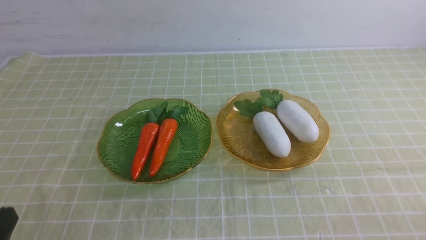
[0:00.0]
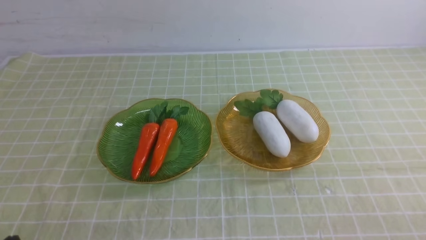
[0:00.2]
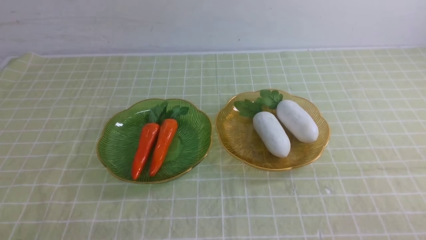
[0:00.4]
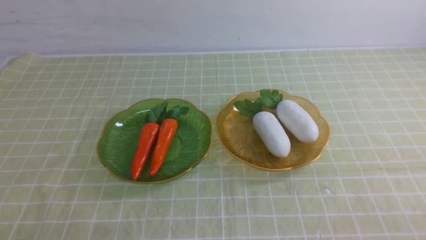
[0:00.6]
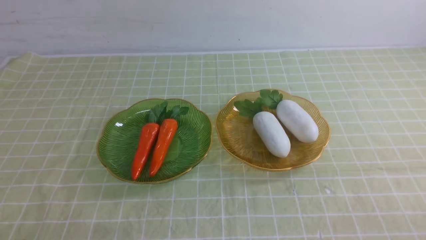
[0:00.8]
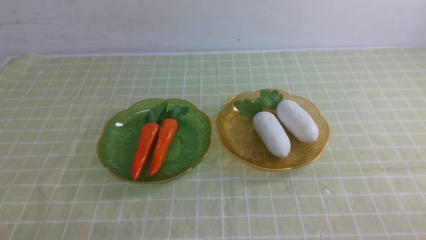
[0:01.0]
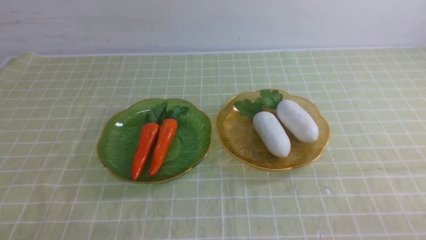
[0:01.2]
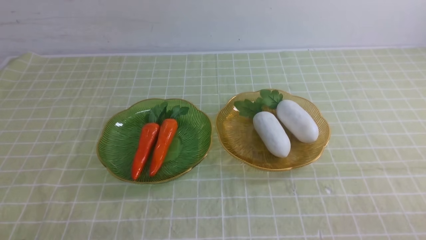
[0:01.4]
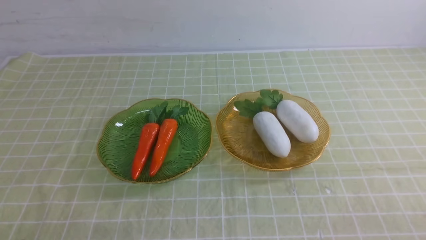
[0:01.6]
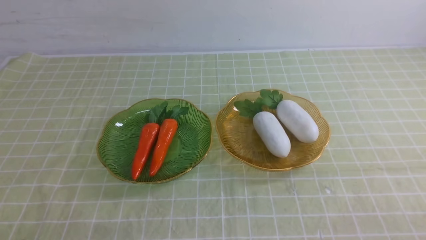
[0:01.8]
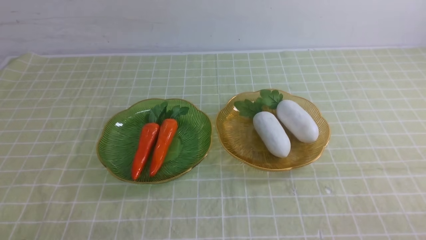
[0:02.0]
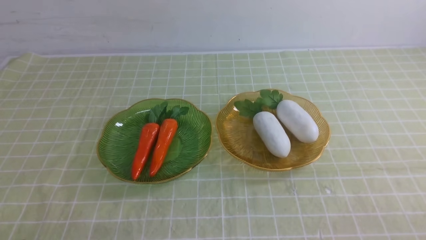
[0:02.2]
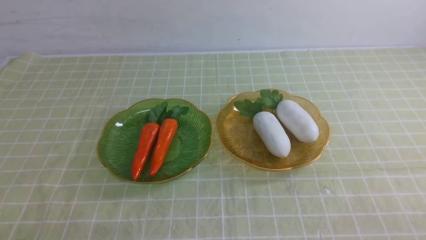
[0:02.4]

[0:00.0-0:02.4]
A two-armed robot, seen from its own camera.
0:01.2 to 0:02.4: Both grippers stay put.
